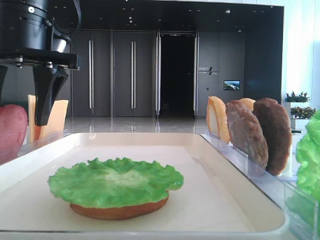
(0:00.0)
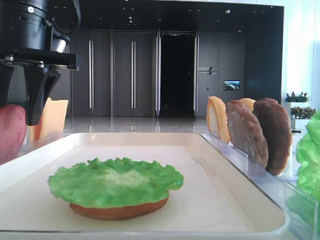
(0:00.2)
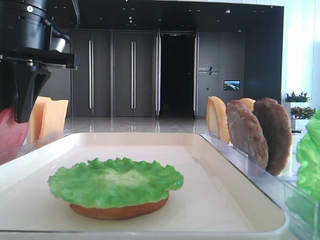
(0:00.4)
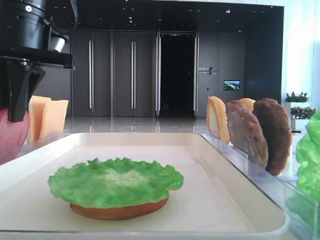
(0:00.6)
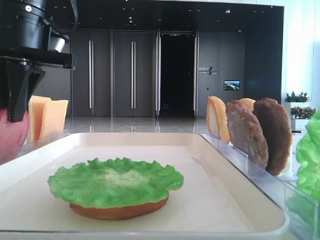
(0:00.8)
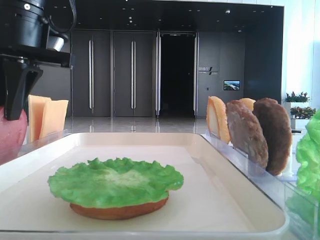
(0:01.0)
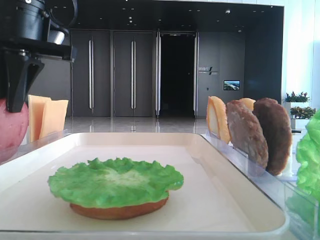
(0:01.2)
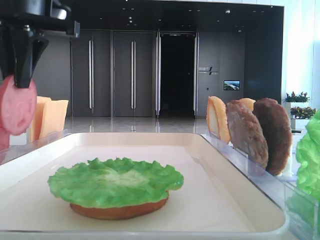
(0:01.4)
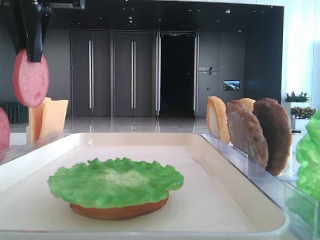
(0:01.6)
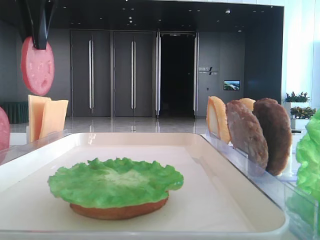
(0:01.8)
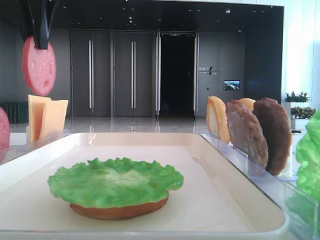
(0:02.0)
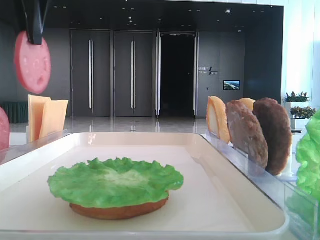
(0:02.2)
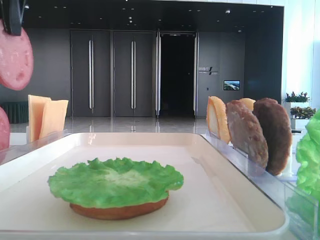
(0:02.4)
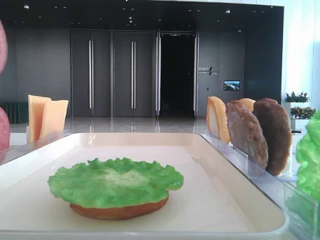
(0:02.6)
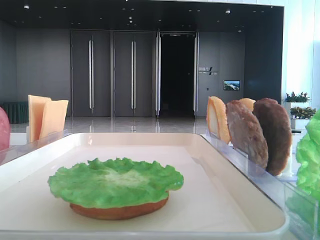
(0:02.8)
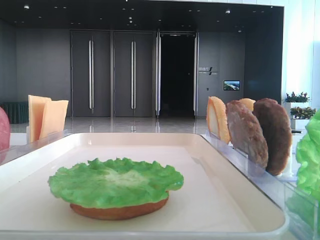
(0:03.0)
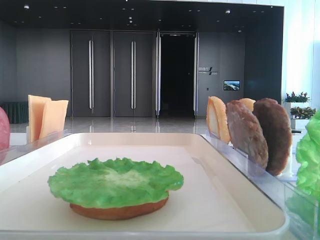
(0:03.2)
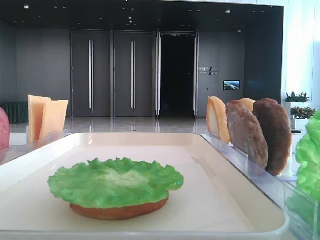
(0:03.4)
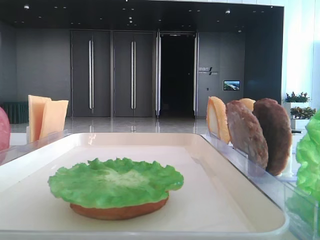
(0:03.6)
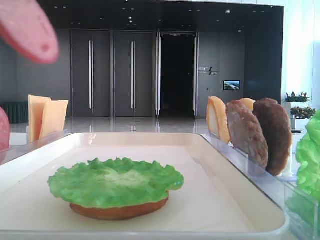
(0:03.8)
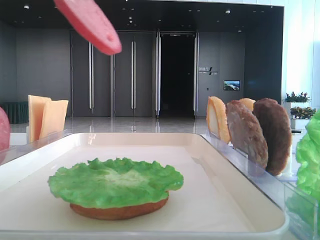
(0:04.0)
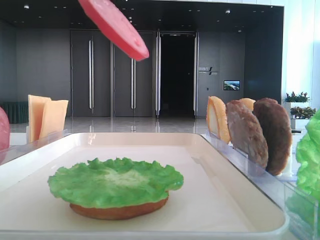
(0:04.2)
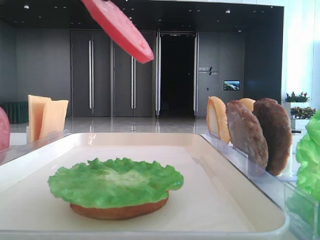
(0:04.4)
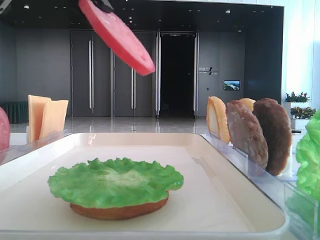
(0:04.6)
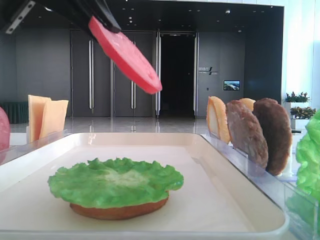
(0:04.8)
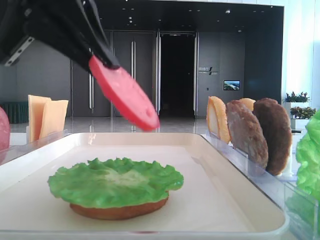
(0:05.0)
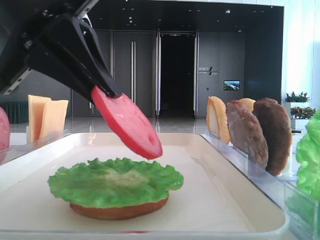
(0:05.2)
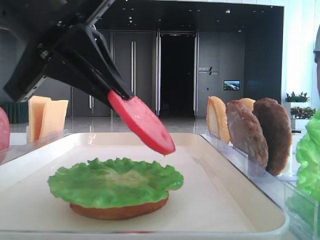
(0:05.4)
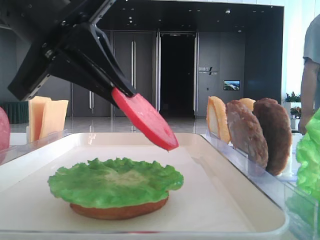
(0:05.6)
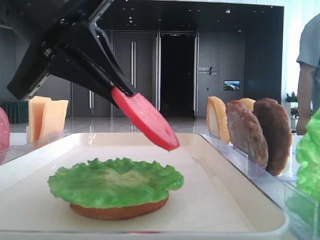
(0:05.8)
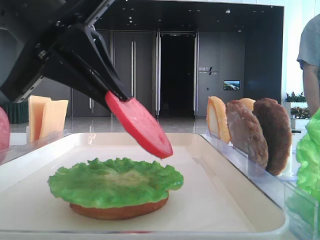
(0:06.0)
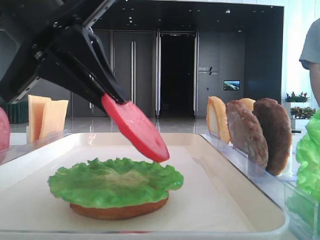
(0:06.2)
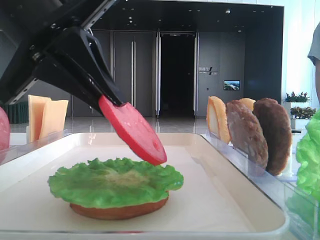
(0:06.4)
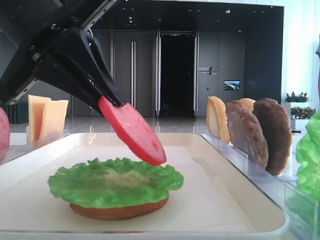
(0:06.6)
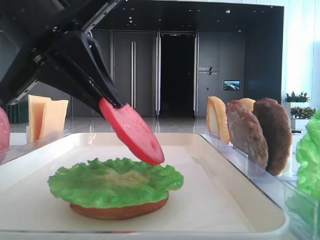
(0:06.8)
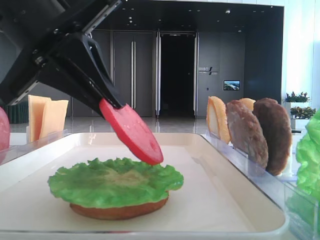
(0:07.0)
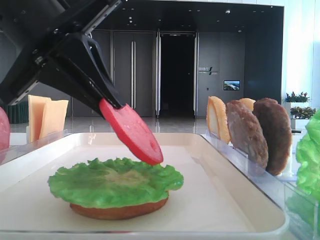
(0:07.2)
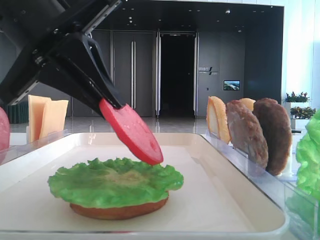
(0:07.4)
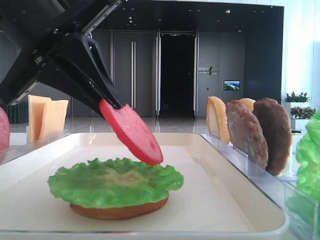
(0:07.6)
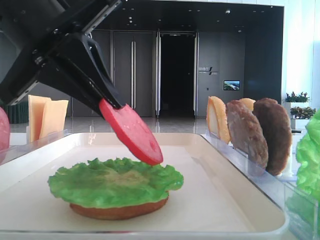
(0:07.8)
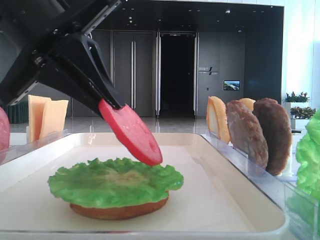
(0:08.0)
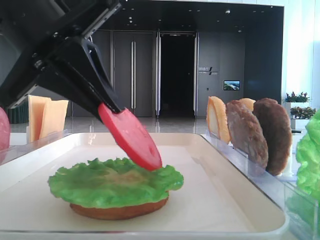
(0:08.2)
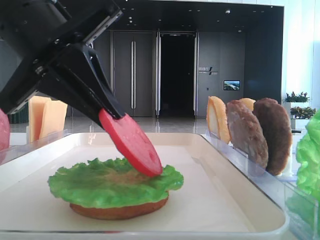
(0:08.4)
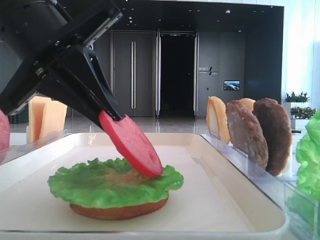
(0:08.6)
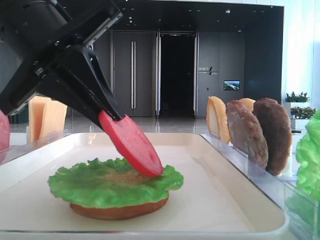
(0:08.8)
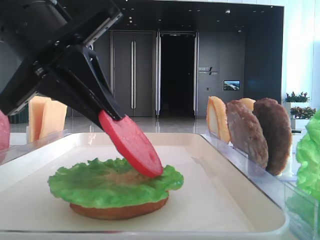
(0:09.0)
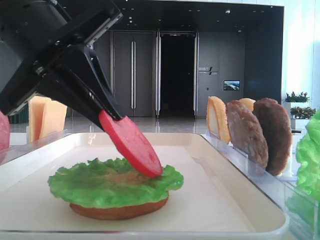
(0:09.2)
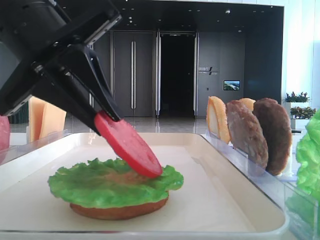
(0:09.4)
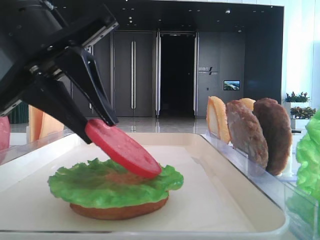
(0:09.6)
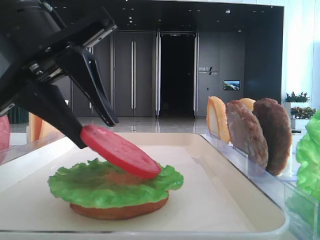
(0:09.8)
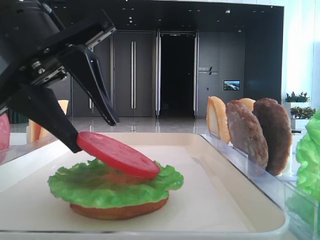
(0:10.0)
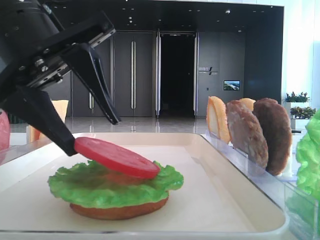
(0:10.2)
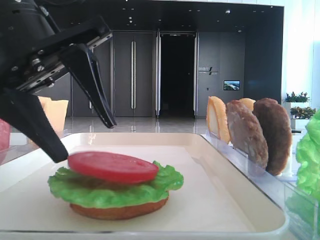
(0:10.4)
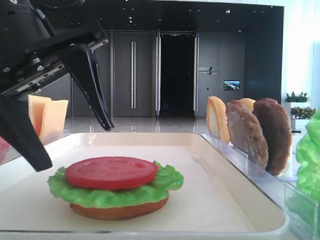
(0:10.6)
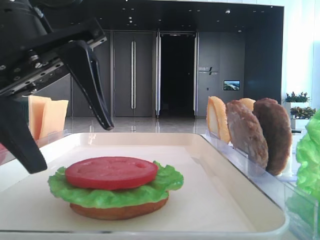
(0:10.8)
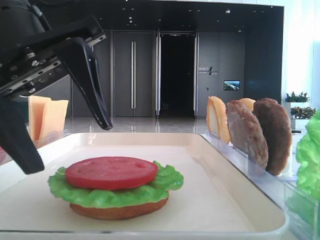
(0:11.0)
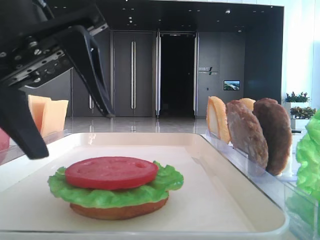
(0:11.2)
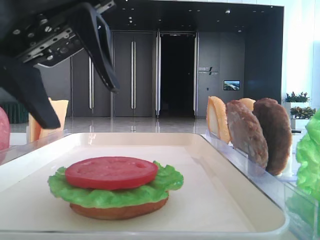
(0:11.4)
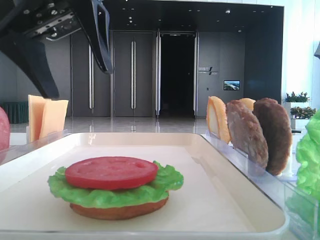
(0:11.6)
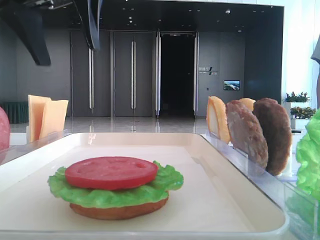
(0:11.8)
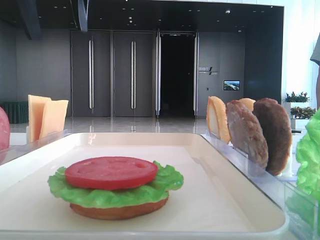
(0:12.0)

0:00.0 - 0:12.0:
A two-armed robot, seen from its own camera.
Step, 0:01.2 - 0:10.4: Place the tomato slice on the lettuce leaf with the left hand.
0:00.0 - 0:01.6: The left gripper is displaced upward by roughly 10 cm, and closes up.
0:01.6 - 0:03.0: The left gripper goes about 15 cm backward and to the left.
0:03.0 - 0:04.4: The left gripper travels to the right by roughly 10 cm.
0:04.4 - 0:06.0: The left gripper travels downward by about 10 cm.
0:06.0 - 0:09.0: Both grippers stay about where they are.
0:09.0 - 0:10.4: The left gripper opens its fingers.
0:10.4 - 0:12.0: The left gripper travels upward and forward by about 15 cm.

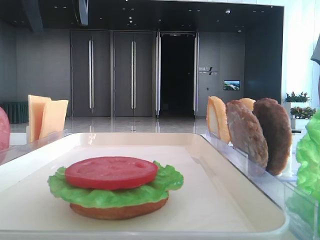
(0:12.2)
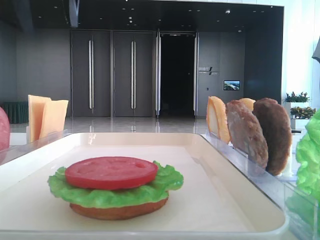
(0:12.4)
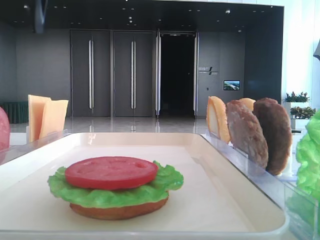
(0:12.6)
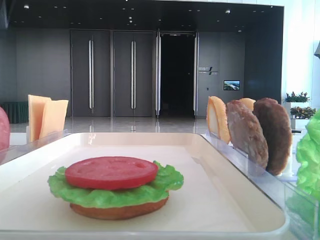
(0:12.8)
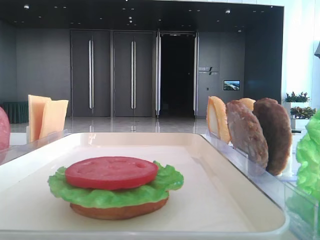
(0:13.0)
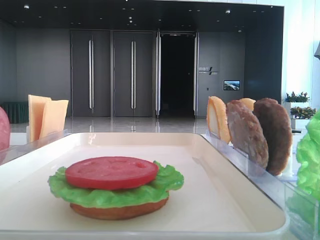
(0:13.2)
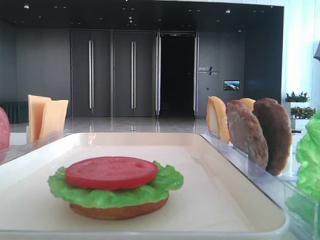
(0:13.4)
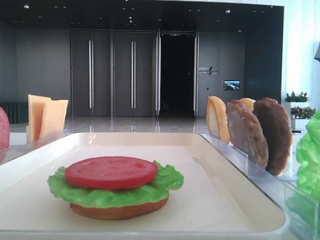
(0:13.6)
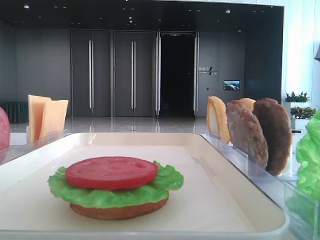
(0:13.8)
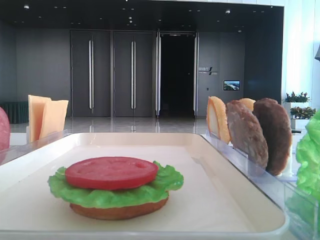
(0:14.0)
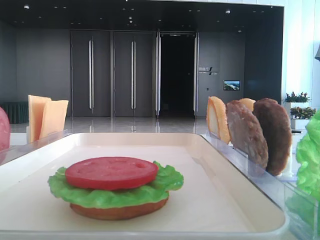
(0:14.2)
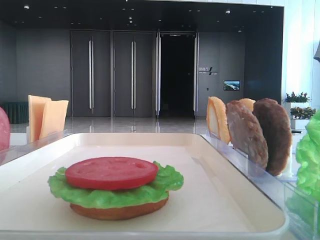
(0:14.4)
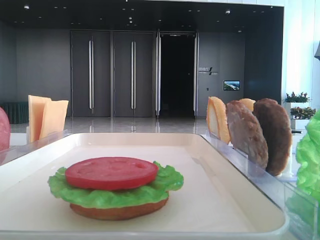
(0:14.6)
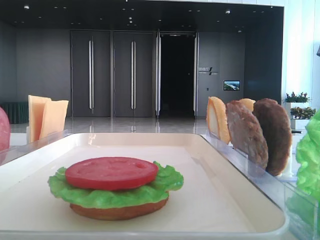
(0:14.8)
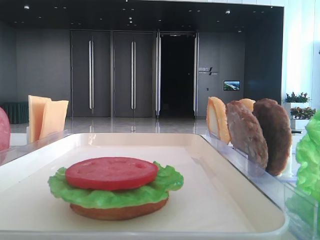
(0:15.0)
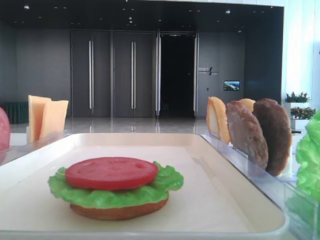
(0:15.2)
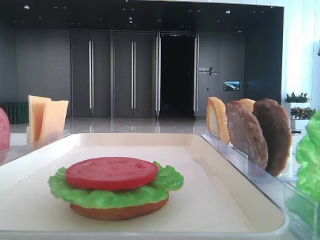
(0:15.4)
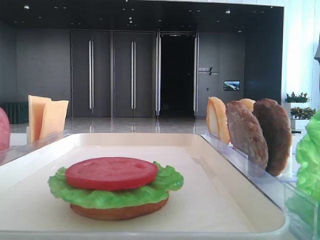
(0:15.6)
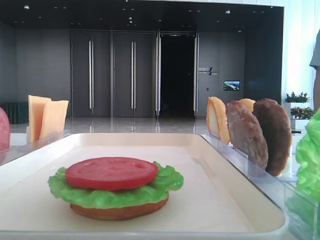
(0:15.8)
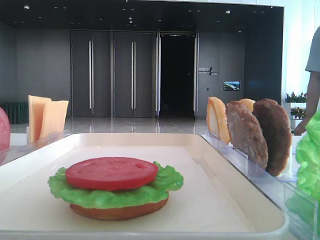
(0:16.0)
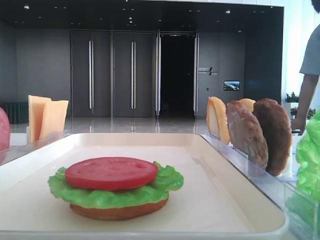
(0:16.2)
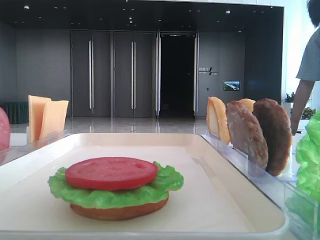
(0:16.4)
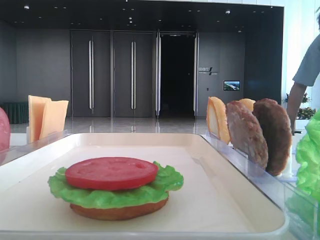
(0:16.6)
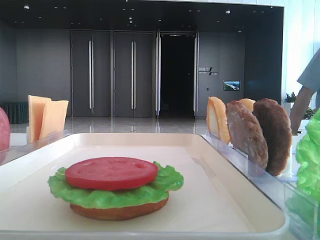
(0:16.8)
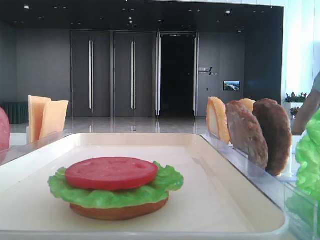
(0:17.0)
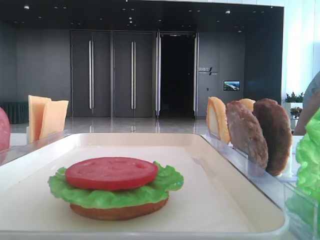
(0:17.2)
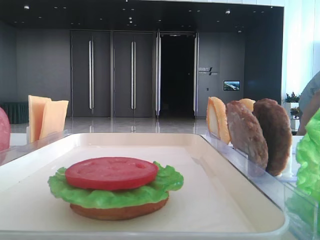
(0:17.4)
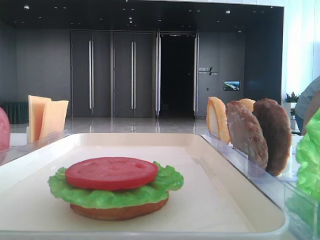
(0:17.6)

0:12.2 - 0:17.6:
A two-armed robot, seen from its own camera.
0:13.6 - 0:15.0: The left gripper travels backward by roughly 35 cm.
0:16.2 - 0:17.6: Both grippers stay about where they are.

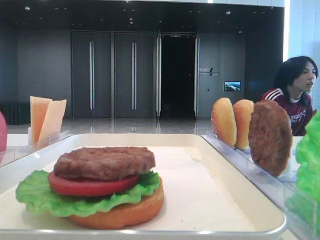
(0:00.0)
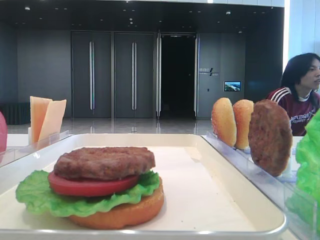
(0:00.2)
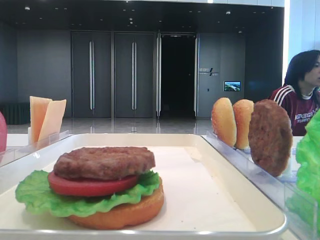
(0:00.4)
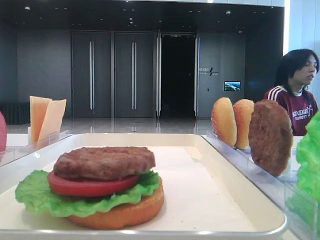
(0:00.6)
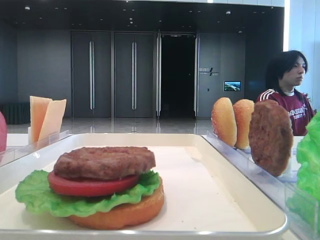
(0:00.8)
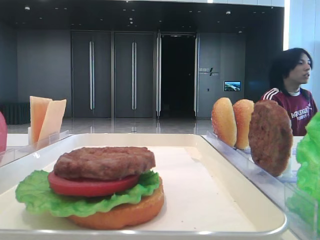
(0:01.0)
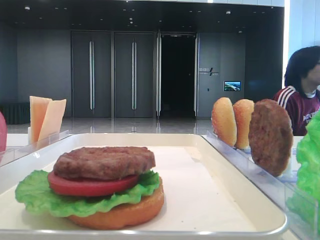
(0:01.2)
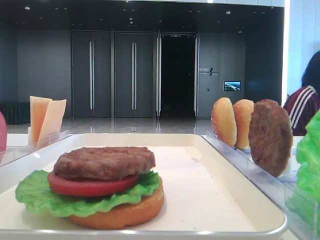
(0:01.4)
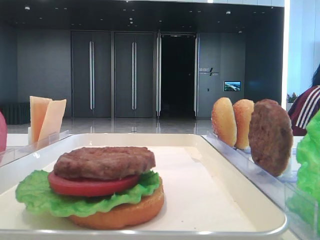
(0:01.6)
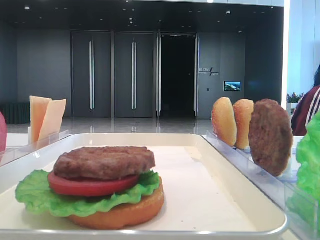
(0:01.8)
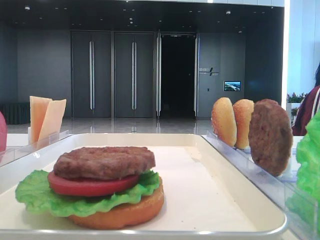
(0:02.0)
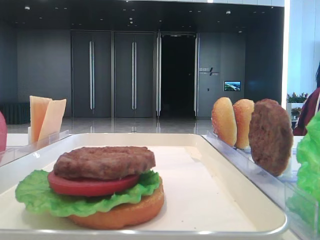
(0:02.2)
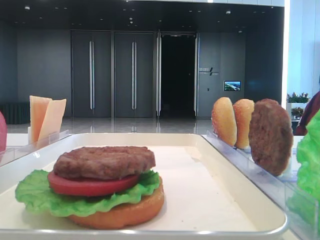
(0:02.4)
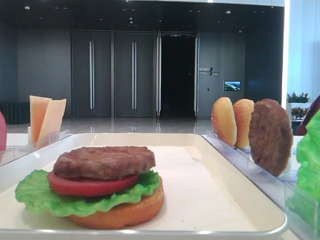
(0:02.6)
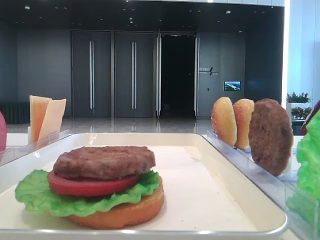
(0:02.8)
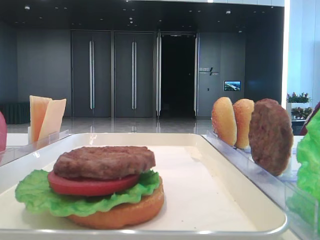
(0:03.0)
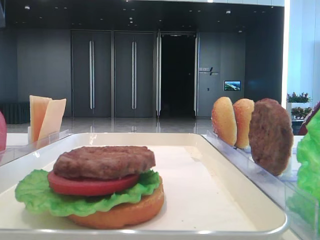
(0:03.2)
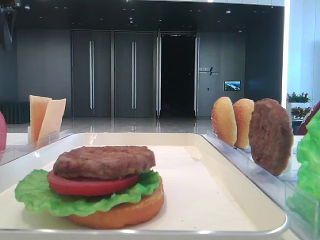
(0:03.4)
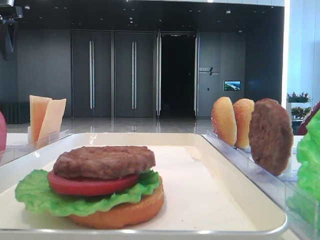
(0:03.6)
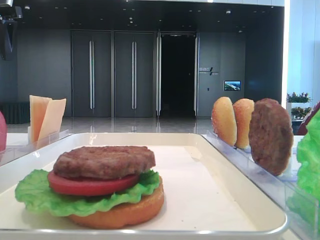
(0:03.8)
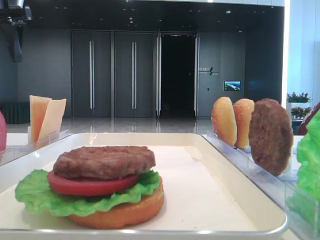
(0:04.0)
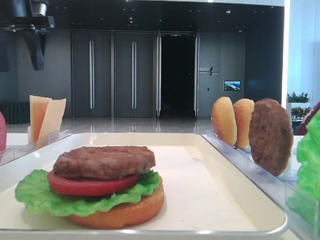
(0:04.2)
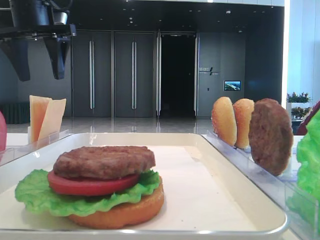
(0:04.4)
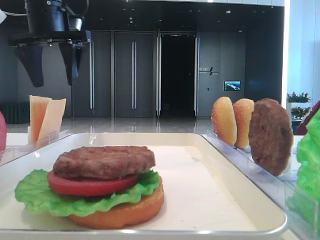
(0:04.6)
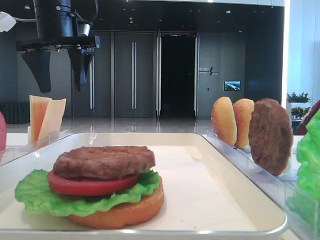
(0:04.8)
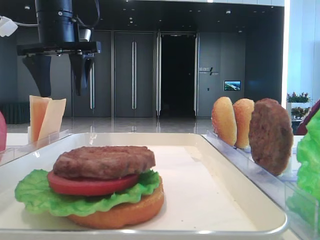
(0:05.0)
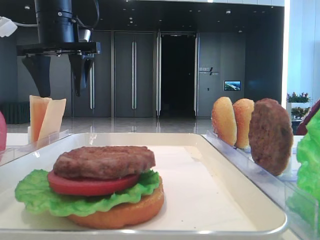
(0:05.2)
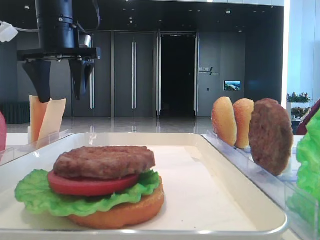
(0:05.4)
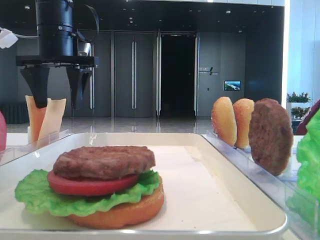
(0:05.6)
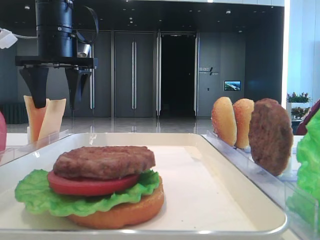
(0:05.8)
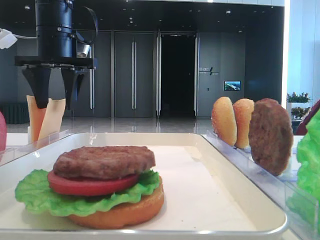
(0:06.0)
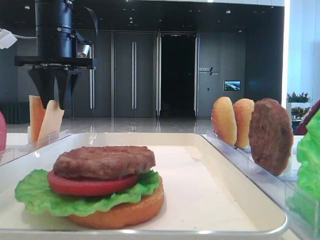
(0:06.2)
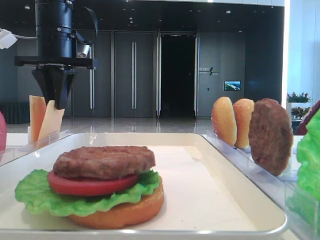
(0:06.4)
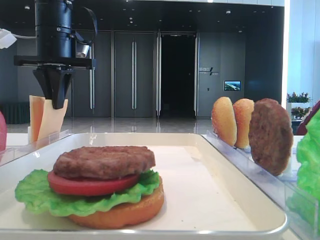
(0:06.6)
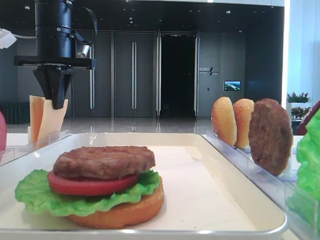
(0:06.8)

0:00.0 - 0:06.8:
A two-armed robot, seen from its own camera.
Step, 0:00.0 - 0:06.8: Pick up the cheese slice with the left hand.
0:01.4 - 0:02.8: The left gripper travels forward by roughly 30 cm.
0:04.0 - 0:05.4: The left gripper travels to the right and downward by approximately 15 cm.
0:05.4 - 0:06.8: The left gripper closes its fingers.
